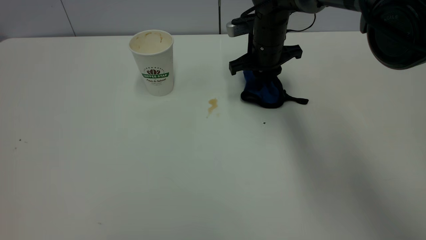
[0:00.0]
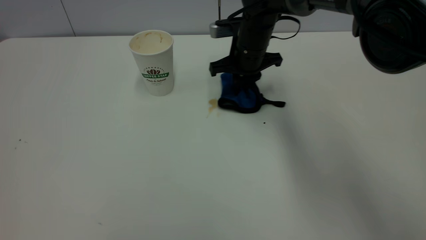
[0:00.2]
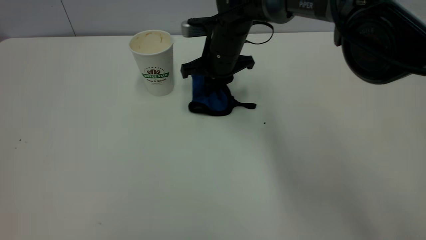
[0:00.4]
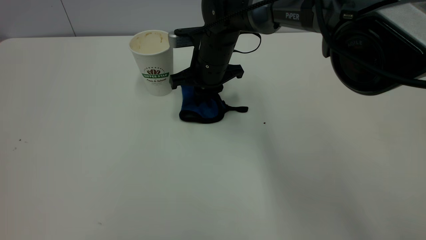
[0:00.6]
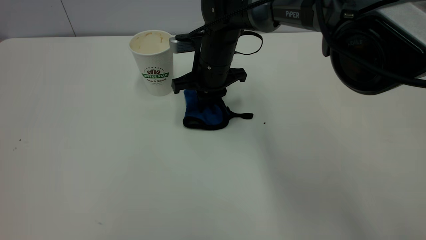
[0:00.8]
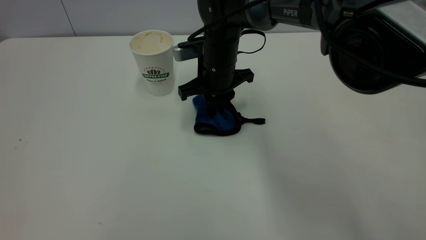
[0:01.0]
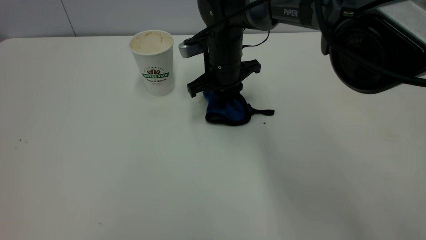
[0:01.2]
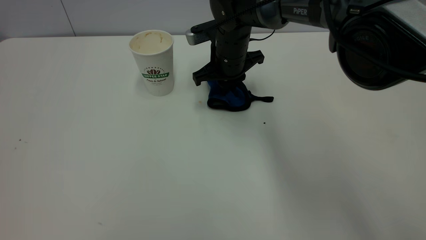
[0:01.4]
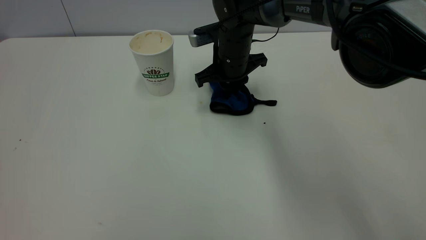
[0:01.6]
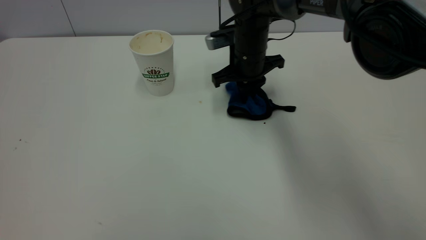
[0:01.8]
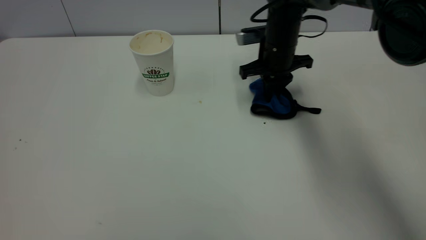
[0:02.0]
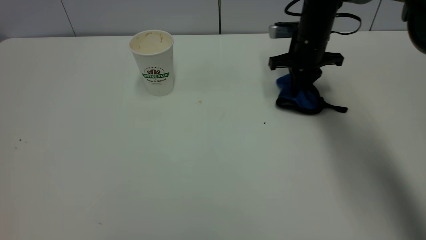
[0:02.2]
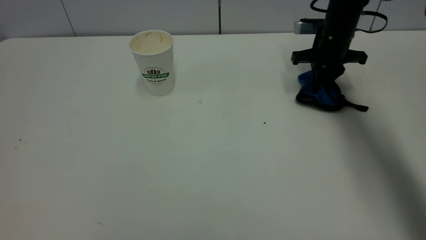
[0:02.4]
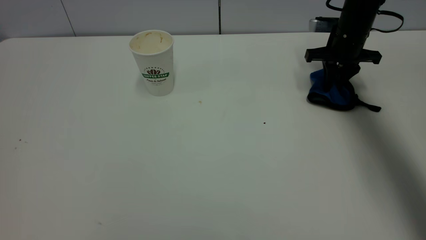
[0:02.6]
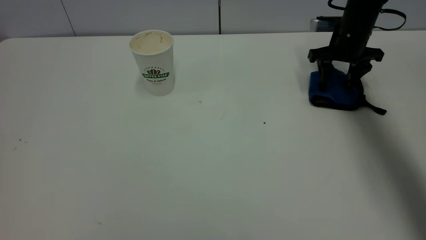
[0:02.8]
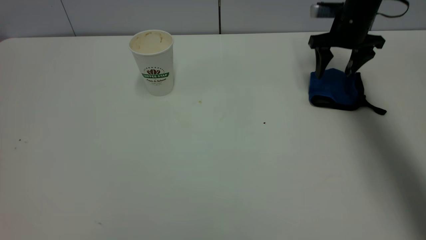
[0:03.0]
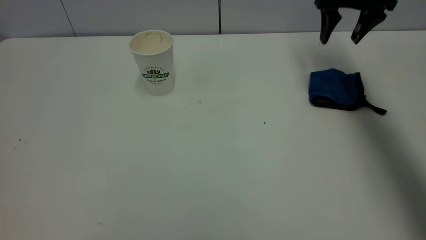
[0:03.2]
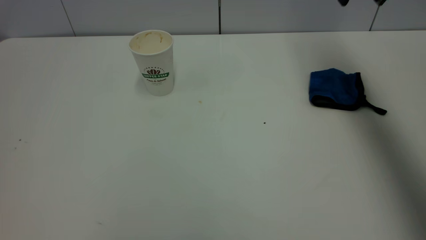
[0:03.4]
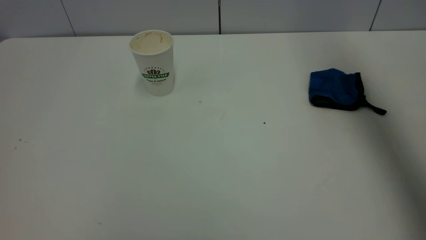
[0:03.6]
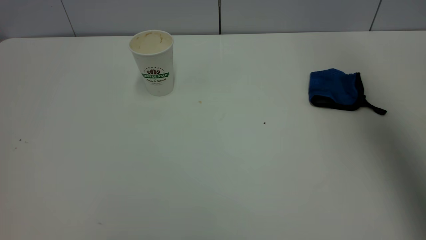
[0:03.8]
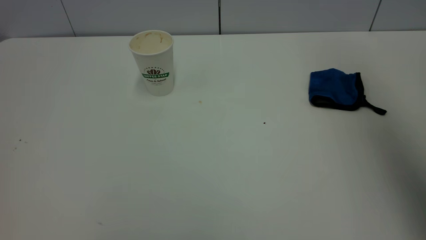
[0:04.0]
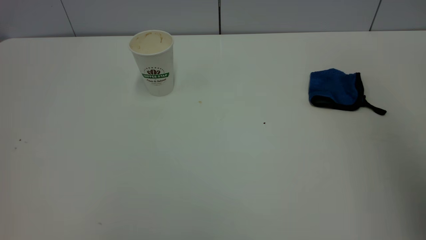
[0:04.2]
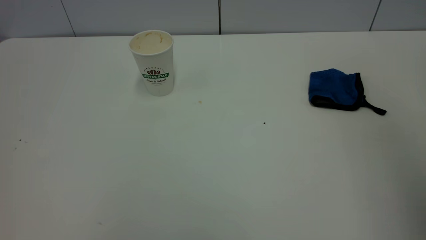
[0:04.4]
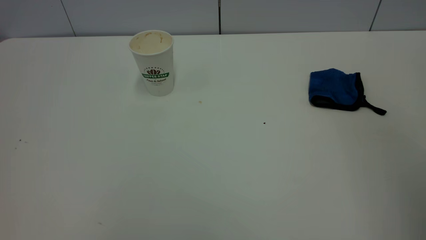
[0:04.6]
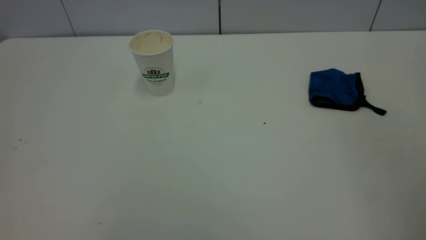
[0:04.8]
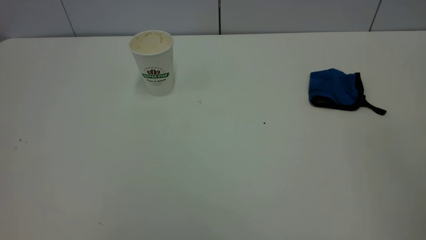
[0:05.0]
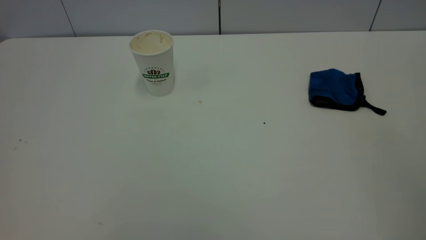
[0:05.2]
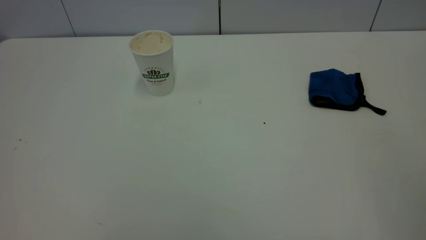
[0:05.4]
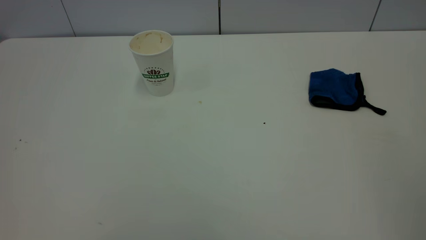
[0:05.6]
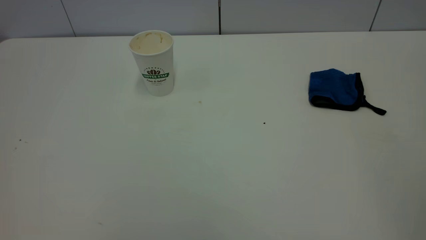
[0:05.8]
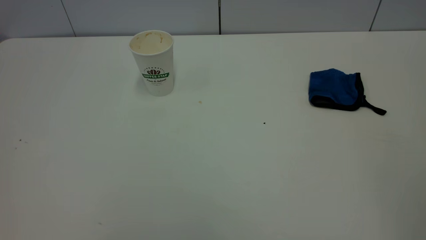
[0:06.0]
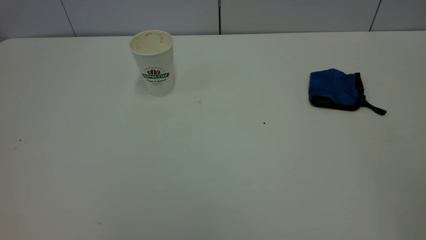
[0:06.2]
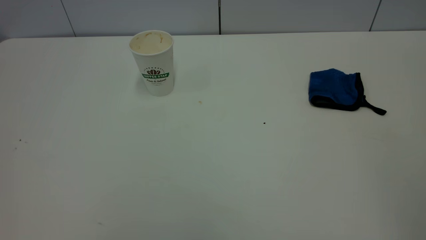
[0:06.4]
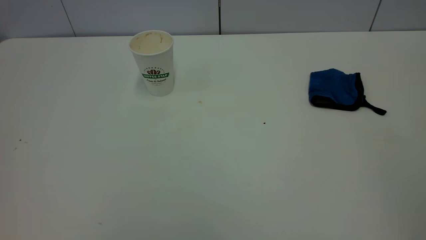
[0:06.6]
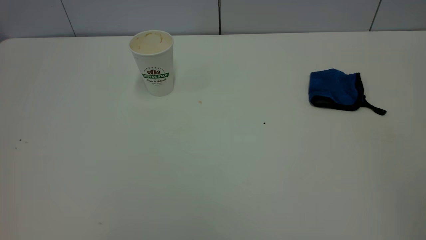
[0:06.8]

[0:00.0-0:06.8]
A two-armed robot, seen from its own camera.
Task of the whole recording: the left gripper pick up the fallen cup and place it upright, the right gripper grasp the blue rag and wipe the tea stain on the table, the right gripper put the blue rag back in its original position.
Step, 0:00.0 to 0:03.2: Wipe the stains off the table with a rag.
0:00.0 to 0:01.4: The right gripper goes about 5 cm to the left.
0:01.4 to 0:02.8: The right gripper goes about 25 cm to the right, and opens its fingers.
0:02.8 to 0:04.0: The right gripper is displaced upward and backward by roughly 50 cm.
0:04.0 to 0:05.4: The right gripper moves backward and downward, about 25 cm.
